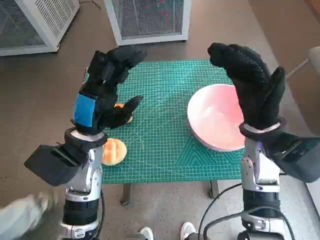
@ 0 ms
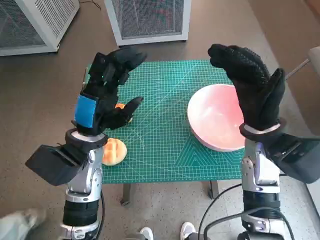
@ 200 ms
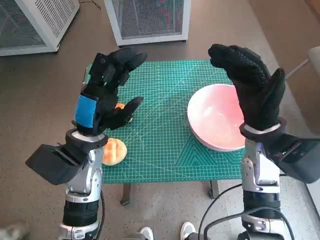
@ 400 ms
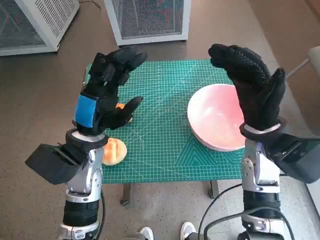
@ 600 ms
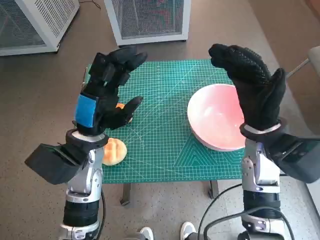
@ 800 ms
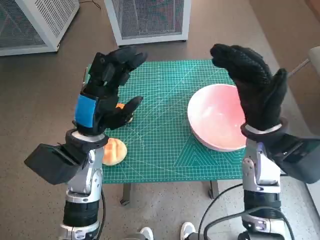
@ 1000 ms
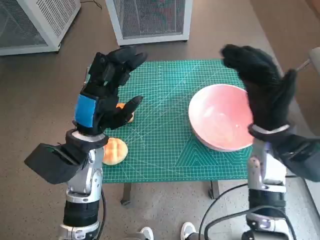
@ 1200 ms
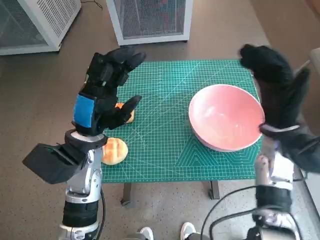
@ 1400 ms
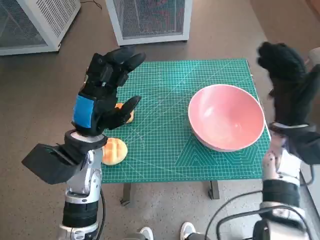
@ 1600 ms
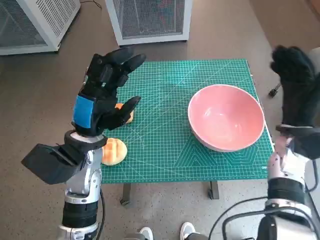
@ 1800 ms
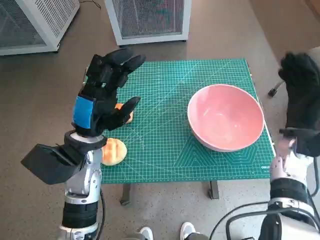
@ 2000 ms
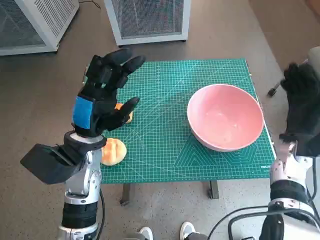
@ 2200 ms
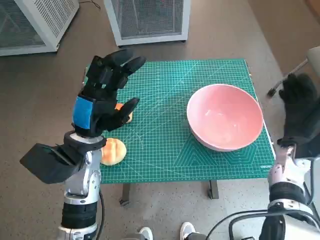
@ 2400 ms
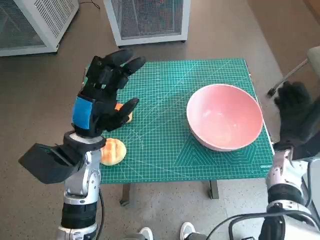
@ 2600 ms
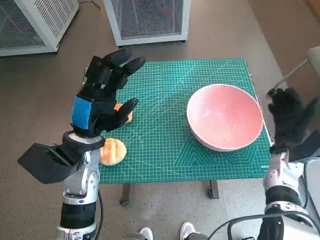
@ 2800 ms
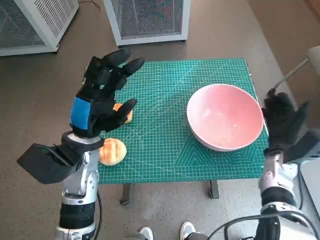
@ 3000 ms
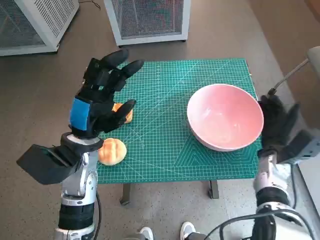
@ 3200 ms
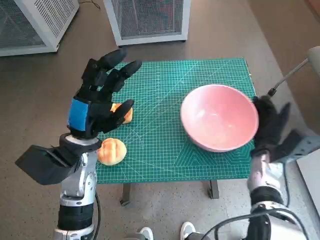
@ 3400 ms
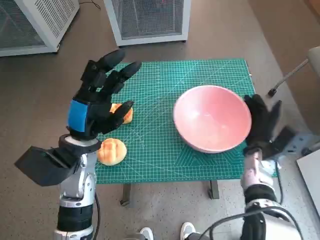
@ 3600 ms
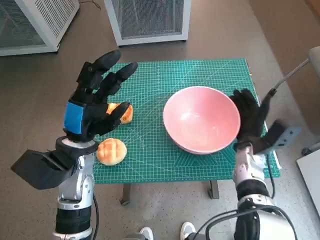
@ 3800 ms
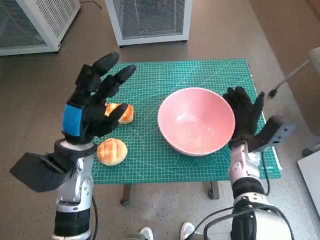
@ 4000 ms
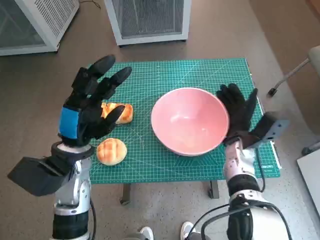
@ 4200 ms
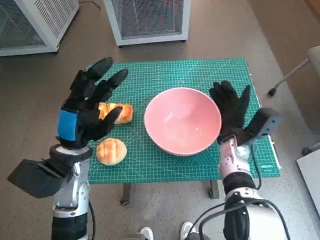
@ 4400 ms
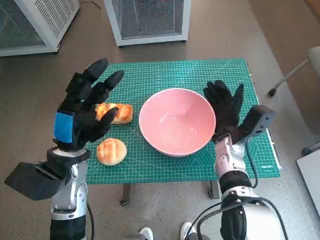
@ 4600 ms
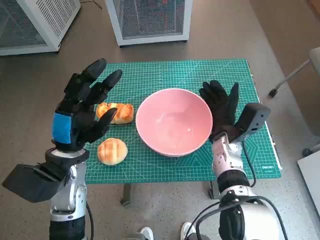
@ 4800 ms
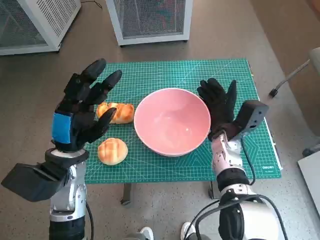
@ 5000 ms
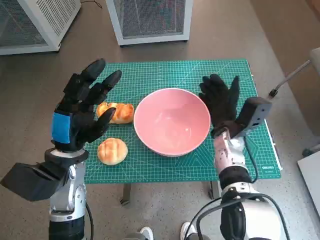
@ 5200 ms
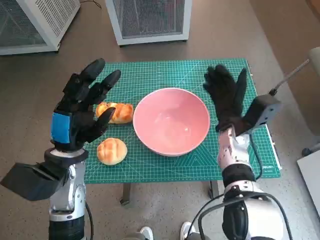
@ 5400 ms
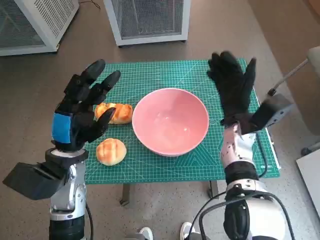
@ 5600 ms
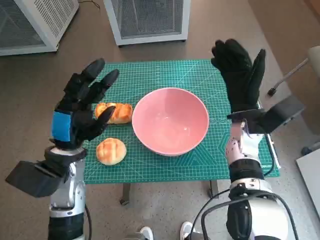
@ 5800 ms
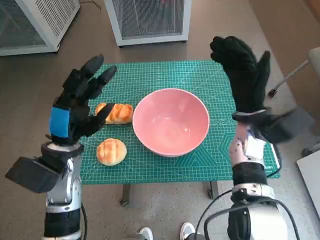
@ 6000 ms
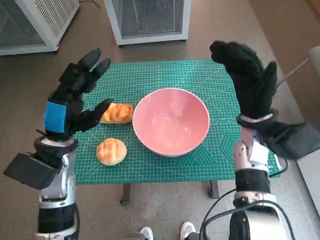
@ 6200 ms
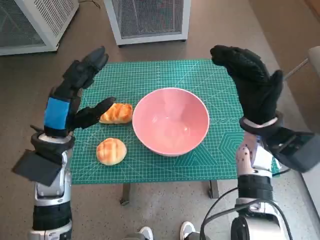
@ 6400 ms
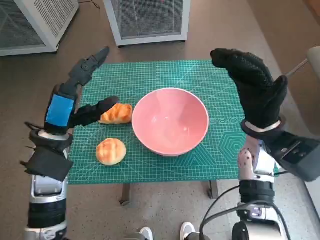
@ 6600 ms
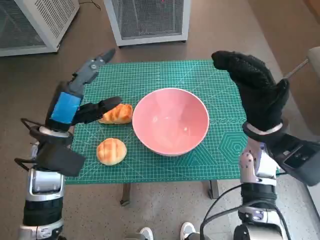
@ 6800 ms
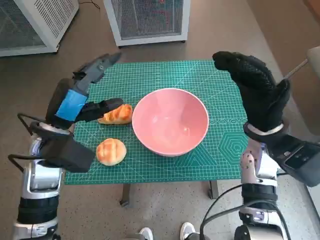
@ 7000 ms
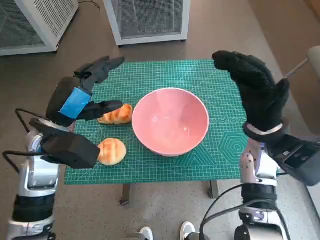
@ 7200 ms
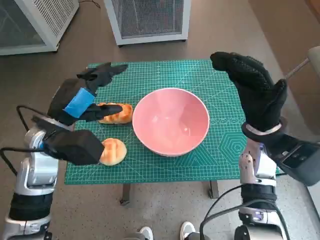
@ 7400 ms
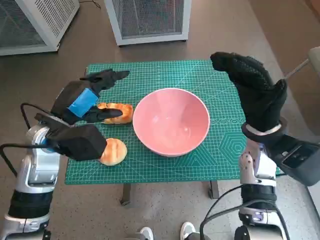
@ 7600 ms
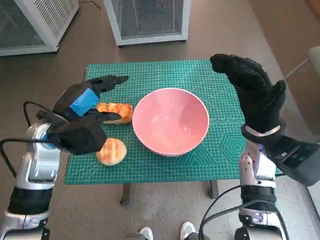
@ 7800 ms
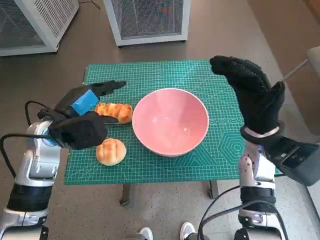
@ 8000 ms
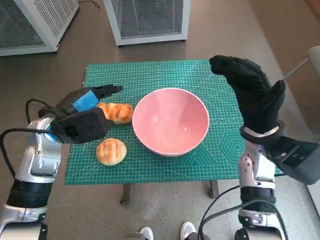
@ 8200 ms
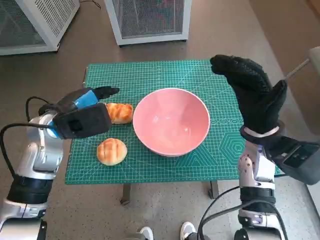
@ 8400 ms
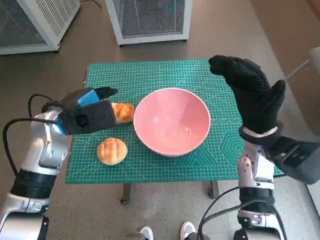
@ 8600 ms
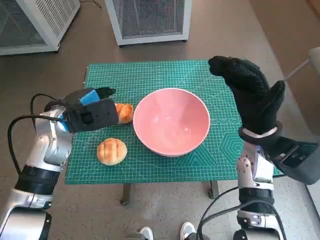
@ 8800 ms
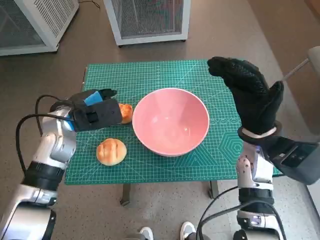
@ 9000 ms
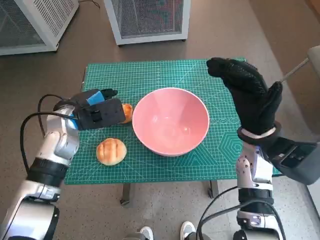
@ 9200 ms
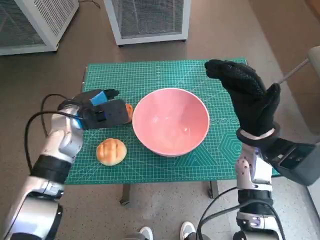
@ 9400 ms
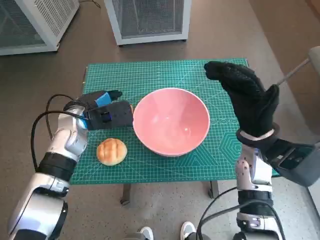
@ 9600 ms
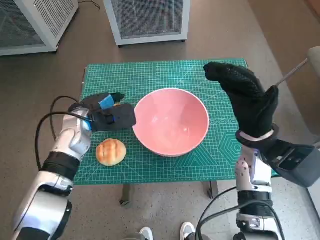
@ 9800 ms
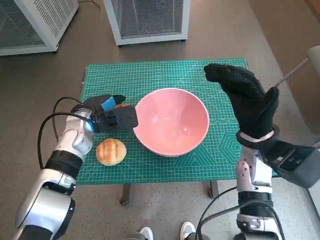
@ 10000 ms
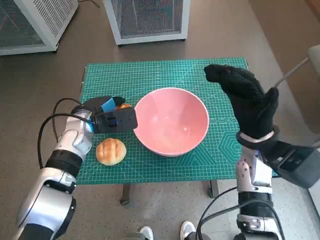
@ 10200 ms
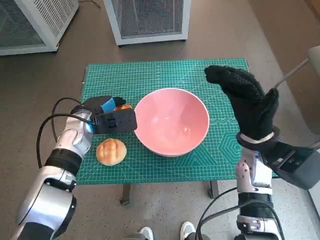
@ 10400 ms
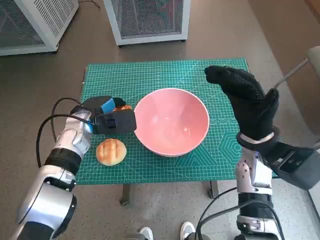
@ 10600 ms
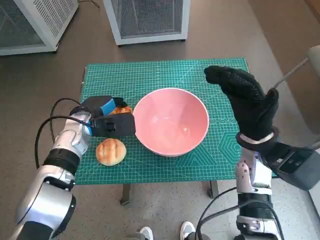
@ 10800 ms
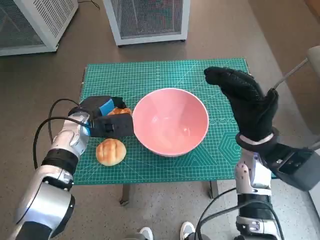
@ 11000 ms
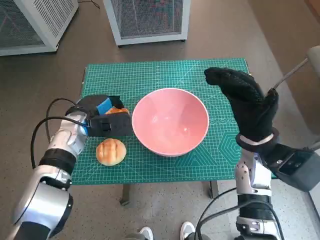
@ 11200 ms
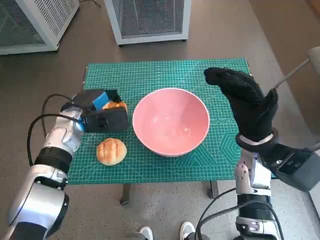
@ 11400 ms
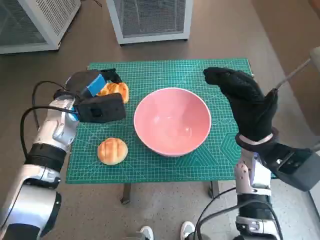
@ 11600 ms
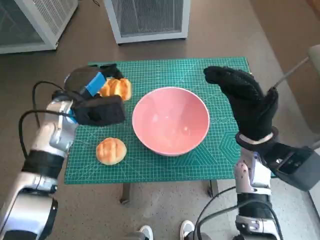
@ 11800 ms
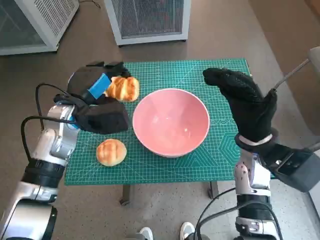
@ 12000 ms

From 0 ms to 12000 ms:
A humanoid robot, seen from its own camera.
Task of the whole recording: Push the bowl into the center of the table and put the bread into the bowl.
Step, from 0 ms to 5400 ms: Move the pink bowl to the center of table with right hand.
Step, from 5600 ms to 10400 ms: Grasp the long bread with left hand.
From 1600 ms to 3000 ms: The right hand moves downward, approximately 10 cm.
From 3000 ms to 4400 ms: The right hand heads to the left, covering about 10 cm.
From 4400 ms to 6000 ms: The right hand is displaced upward by approximately 10 cm.
From 6000 ms to 7600 ms: The left hand changes place by about 5 cm.
From 7600 ms to 9000 ms: The left hand ends up about 5 cm from where it was.
From 9000 ms to 10400 ms: The left hand heads downward, covering approximately 5 cm.
From 10400 ms to 12000 ms: The left hand is displaced upward by about 5 cm.

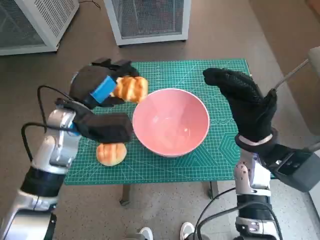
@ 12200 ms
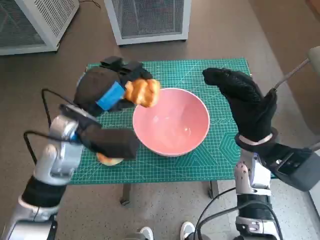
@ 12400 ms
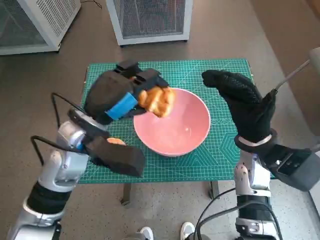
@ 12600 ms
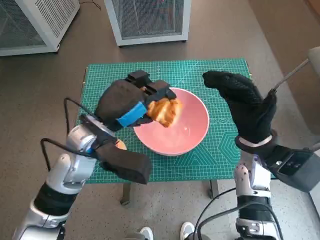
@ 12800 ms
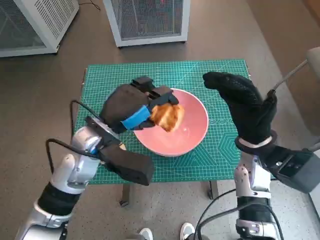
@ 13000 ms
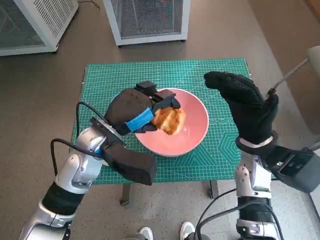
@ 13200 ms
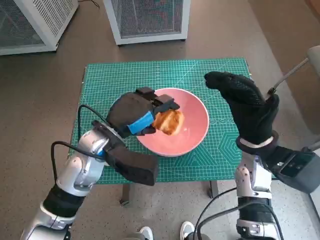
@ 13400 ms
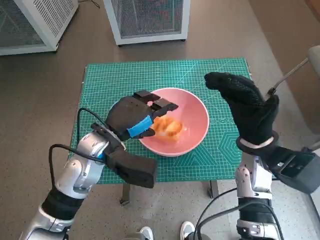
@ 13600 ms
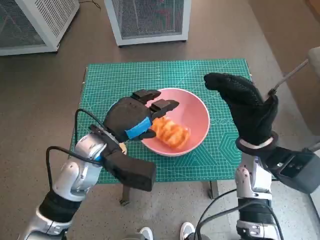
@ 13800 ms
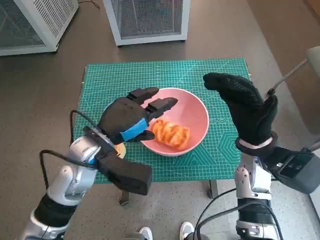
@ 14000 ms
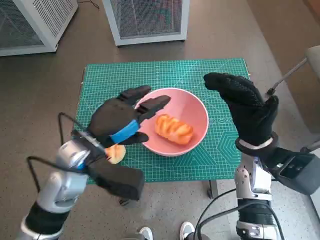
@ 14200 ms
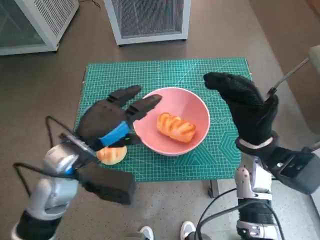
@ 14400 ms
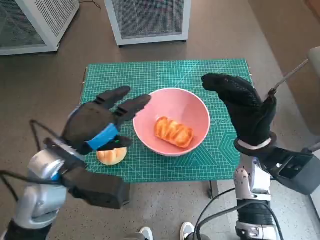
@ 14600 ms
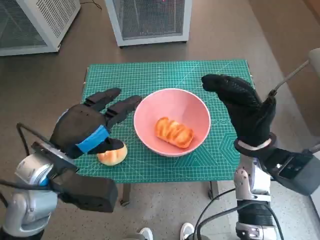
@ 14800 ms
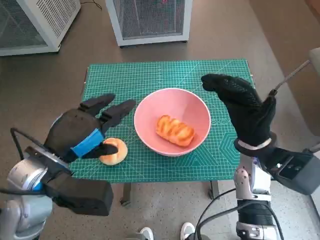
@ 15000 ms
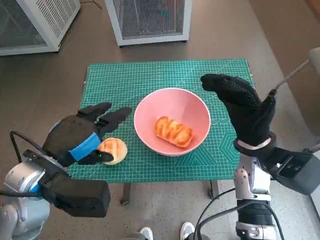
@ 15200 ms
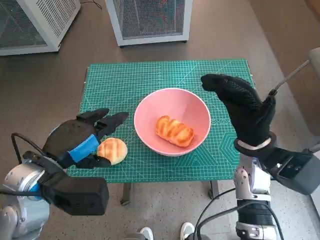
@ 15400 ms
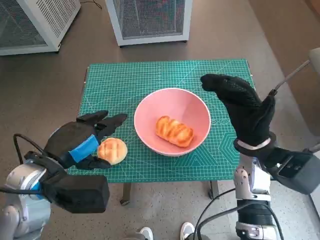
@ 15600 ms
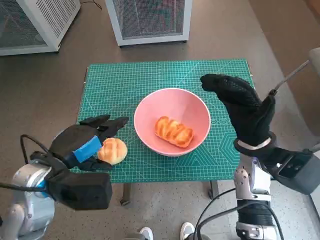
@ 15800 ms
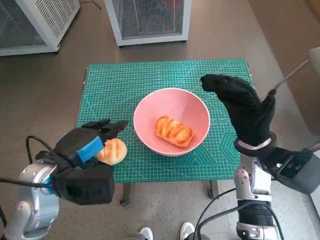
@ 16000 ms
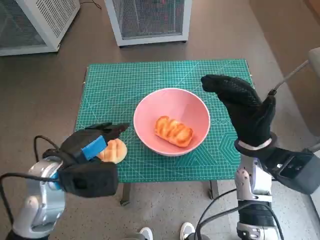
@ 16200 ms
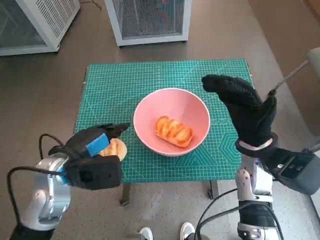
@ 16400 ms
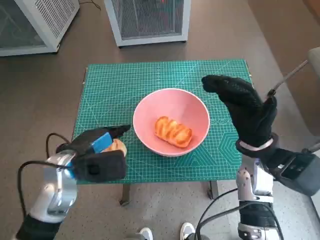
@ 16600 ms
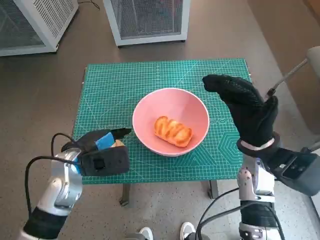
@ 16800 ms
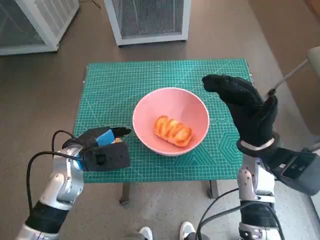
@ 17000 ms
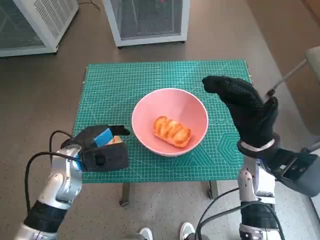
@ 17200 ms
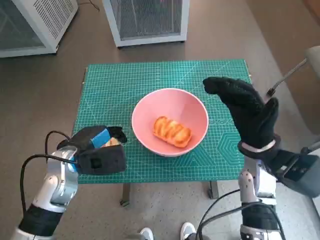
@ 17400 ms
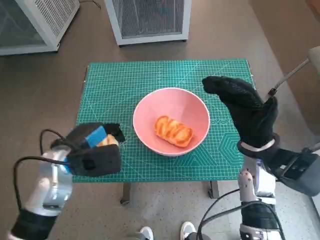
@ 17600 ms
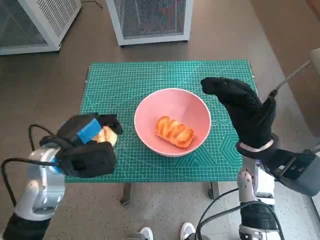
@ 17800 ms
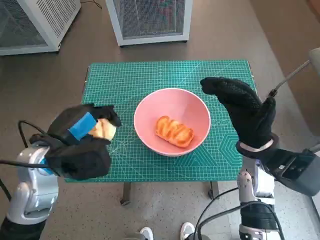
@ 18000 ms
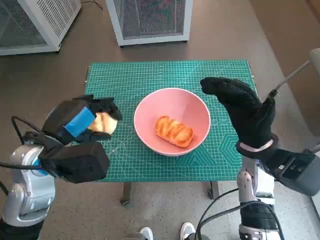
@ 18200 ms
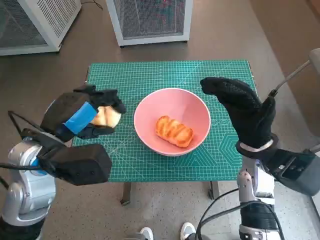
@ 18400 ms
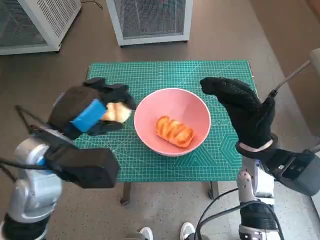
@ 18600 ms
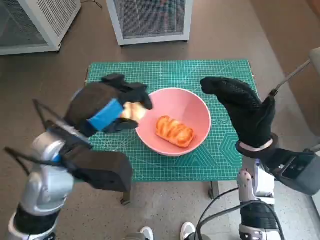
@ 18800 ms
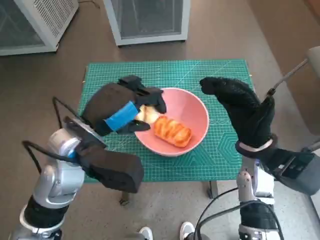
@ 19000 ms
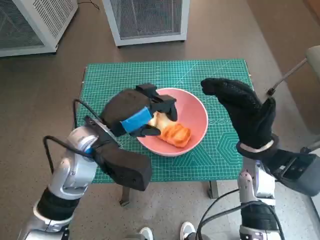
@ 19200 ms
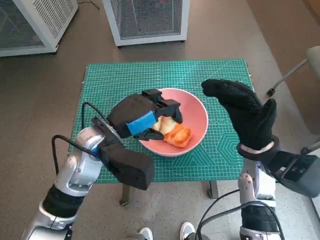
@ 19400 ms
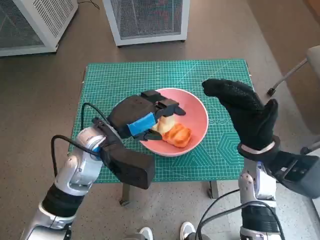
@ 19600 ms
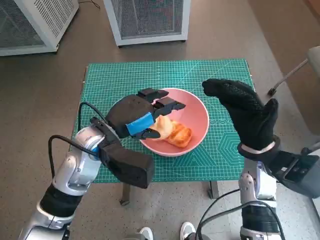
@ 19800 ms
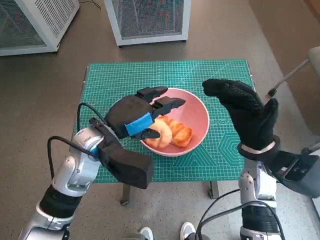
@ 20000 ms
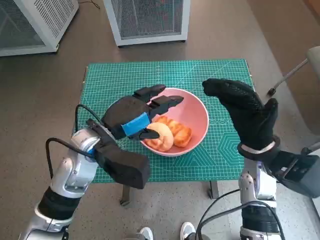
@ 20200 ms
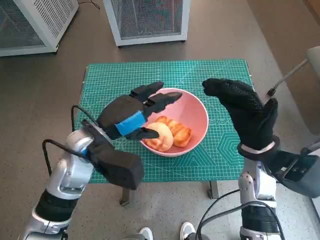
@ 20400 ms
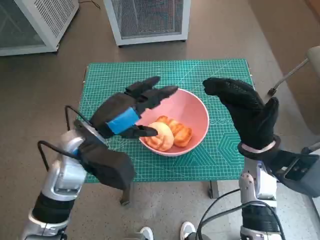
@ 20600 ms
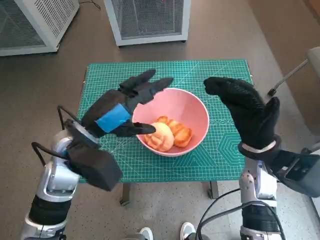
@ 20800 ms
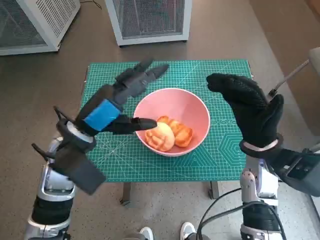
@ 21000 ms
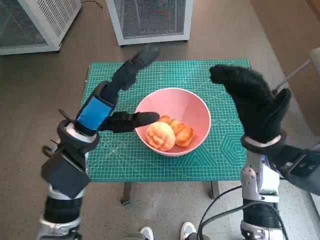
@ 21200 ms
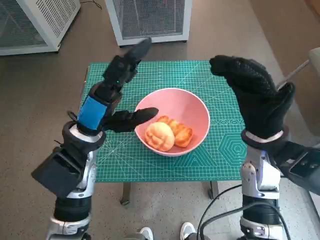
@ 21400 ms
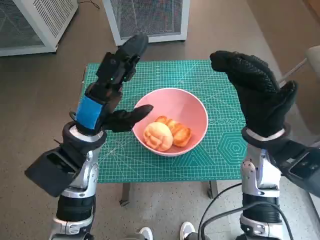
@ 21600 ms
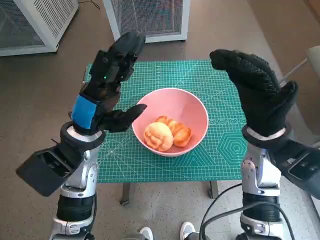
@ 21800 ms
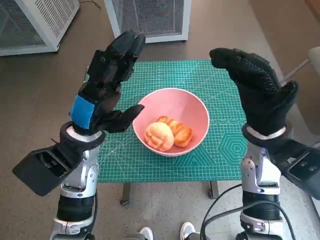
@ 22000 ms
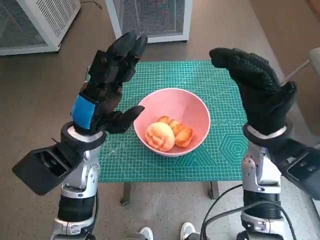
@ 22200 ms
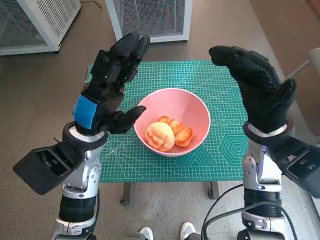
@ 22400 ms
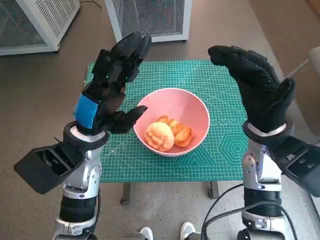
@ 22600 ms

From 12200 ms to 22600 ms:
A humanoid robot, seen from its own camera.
Task of the whole recording: Push the bowl into the center of the table and put the bread into the bowl.
Step, from 13800 ms to 17000 ms: Grasp the round bread with left hand.
Step, from 17200 ms to 19800 ms: Place the round bread in pink bowl with left hand.
From 12200 ms to 13600 ms: The left hand moves to the right, roughly 5 cm.
From 13600 ms to 15200 ms: The left hand shifts some 10 cm backward and to the left.
From 15200 ms to 16600 ms: The left hand travels downward by some 5 cm.
From 16600 ms to 18200 ms: The left hand is displaced upward by approximately 5 cm.
From 18200 ms to 19600 ms: The left hand goes roughly 10 cm to the right.
